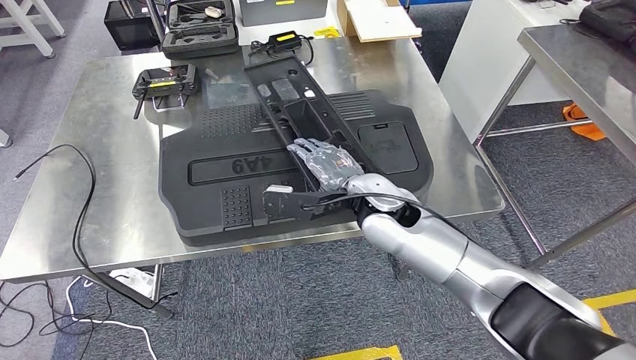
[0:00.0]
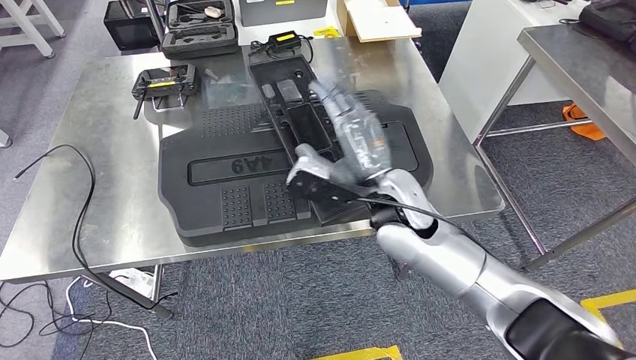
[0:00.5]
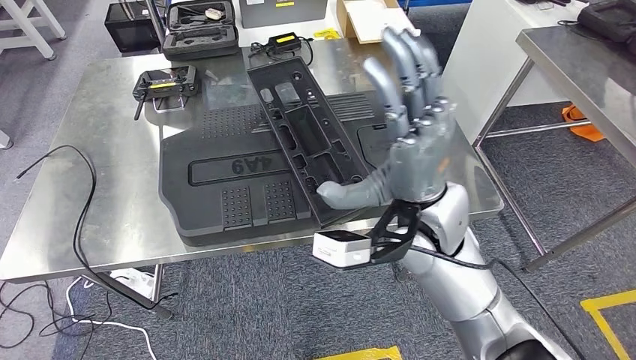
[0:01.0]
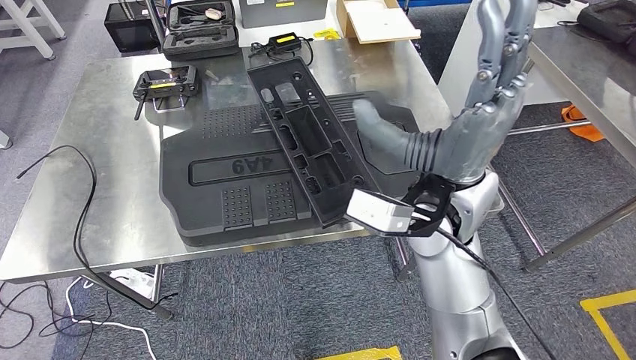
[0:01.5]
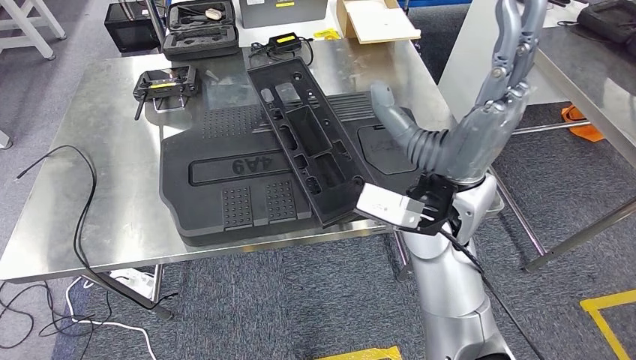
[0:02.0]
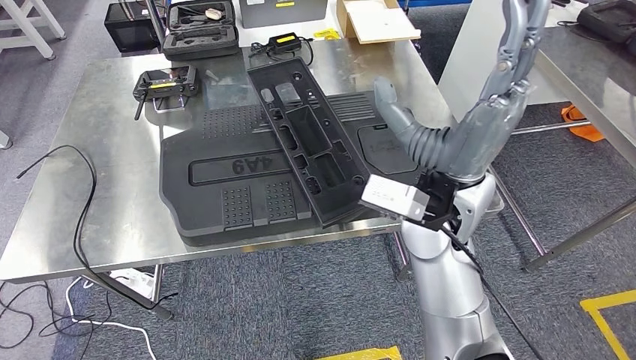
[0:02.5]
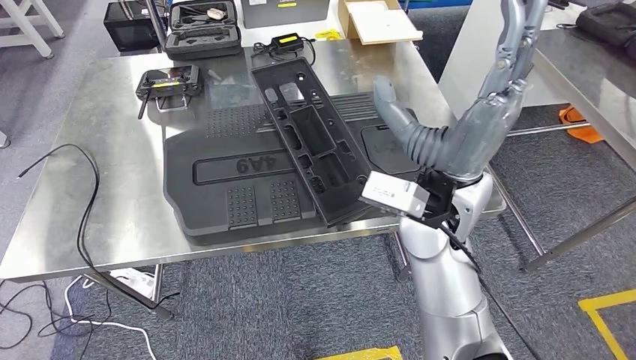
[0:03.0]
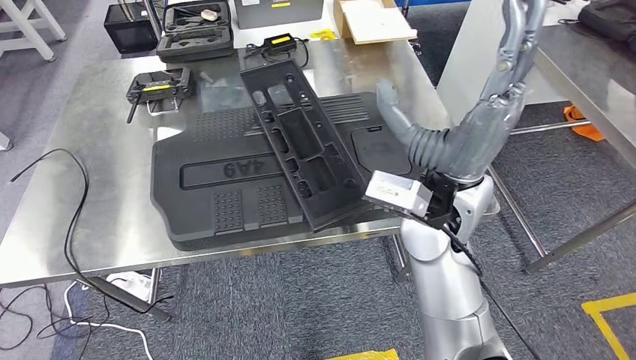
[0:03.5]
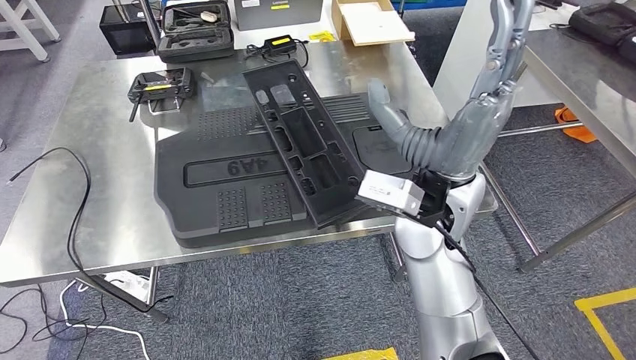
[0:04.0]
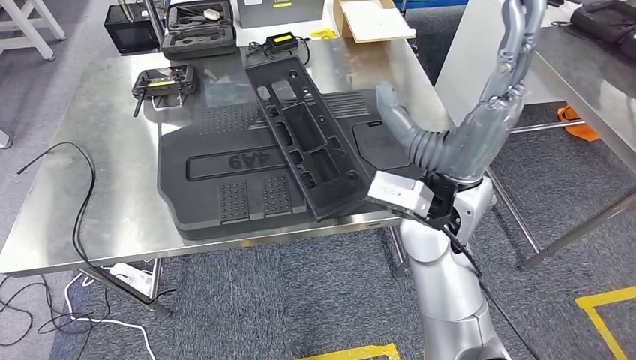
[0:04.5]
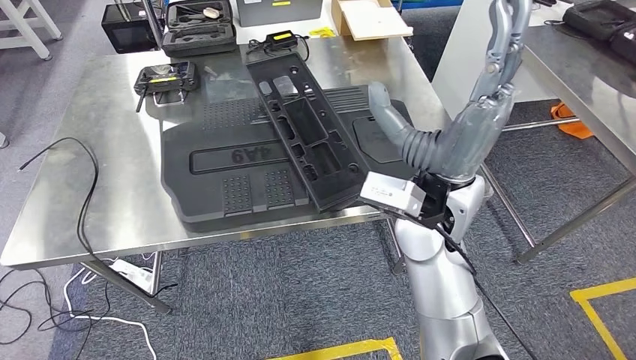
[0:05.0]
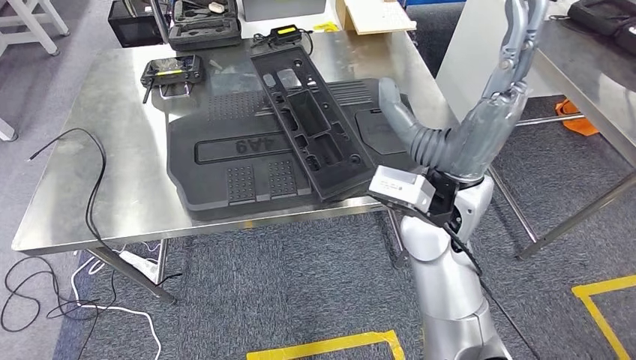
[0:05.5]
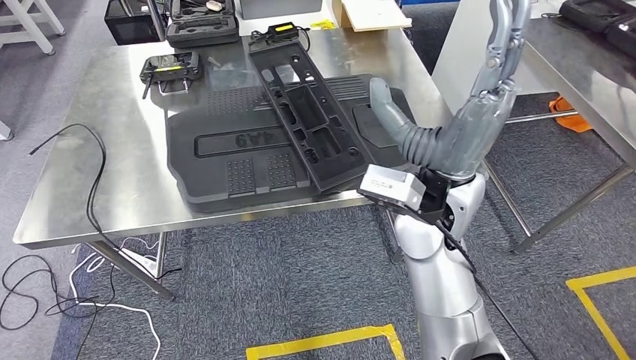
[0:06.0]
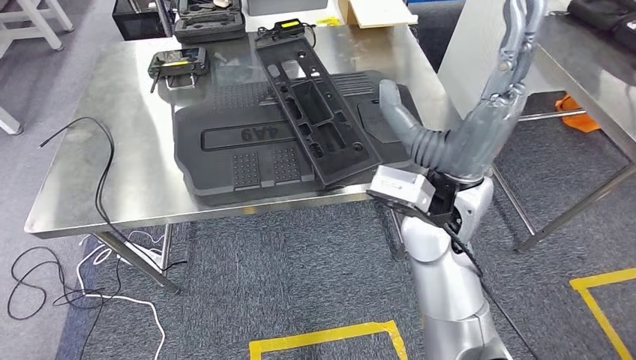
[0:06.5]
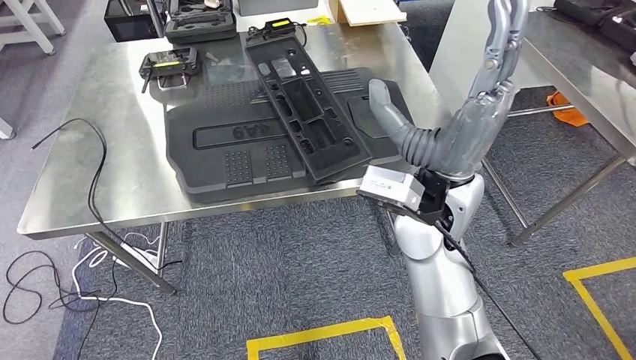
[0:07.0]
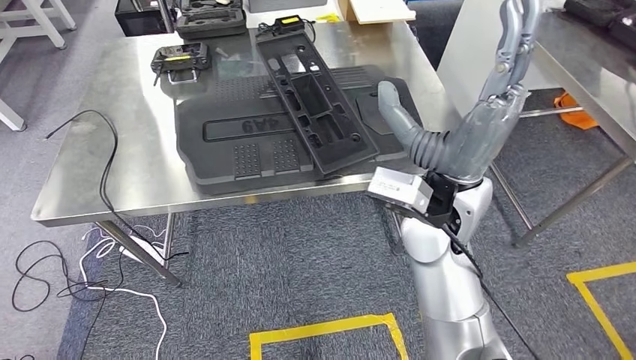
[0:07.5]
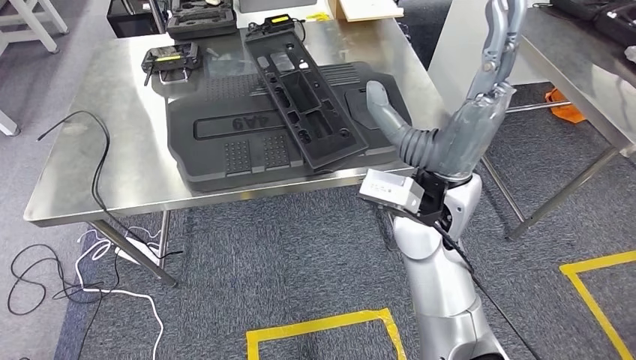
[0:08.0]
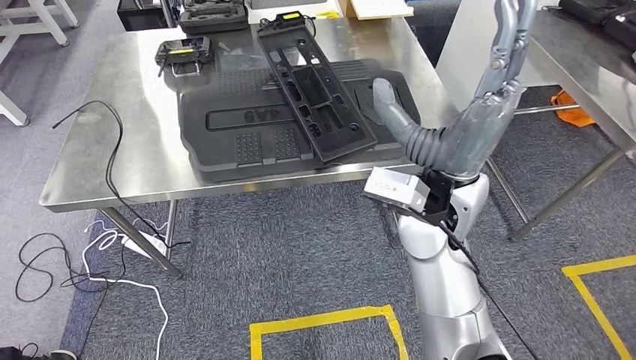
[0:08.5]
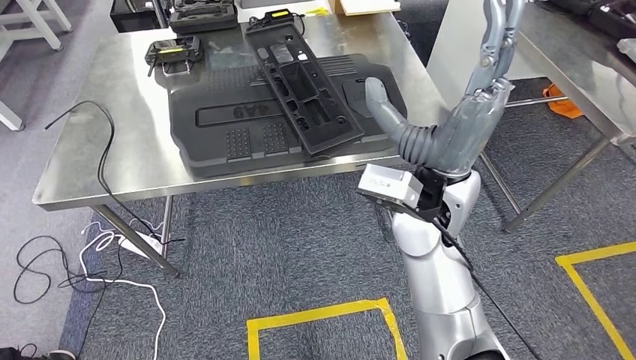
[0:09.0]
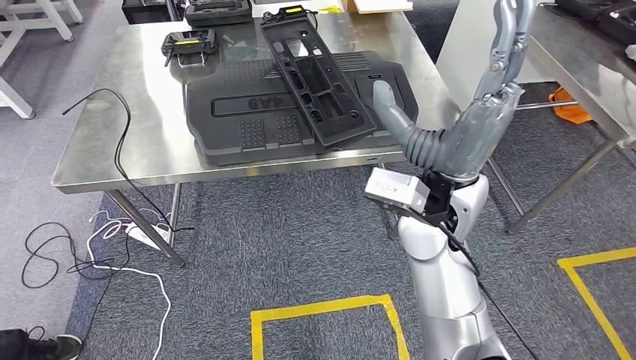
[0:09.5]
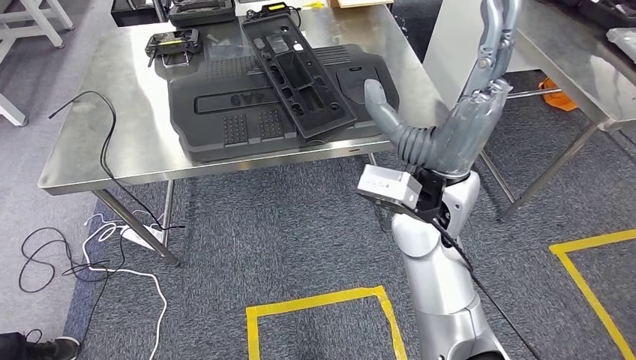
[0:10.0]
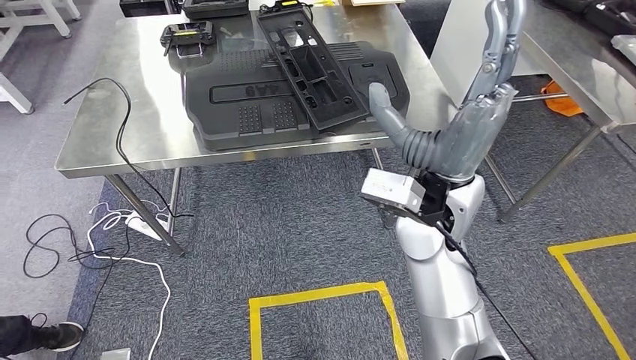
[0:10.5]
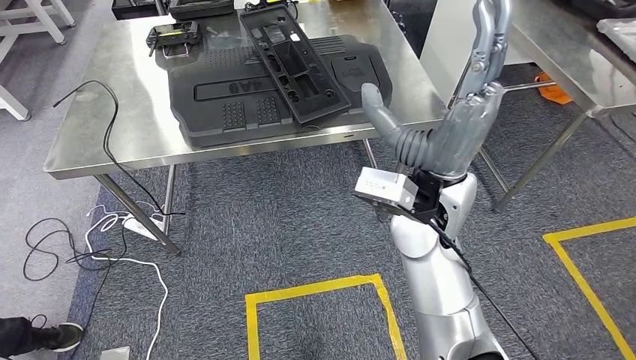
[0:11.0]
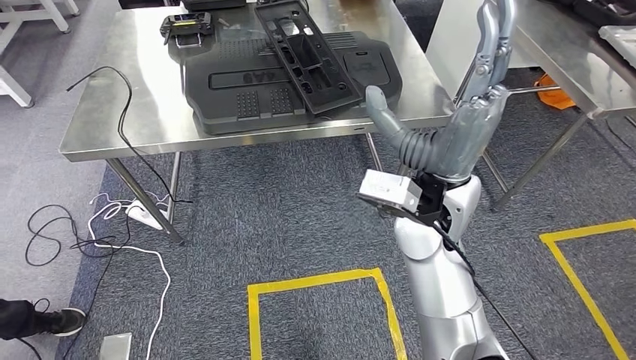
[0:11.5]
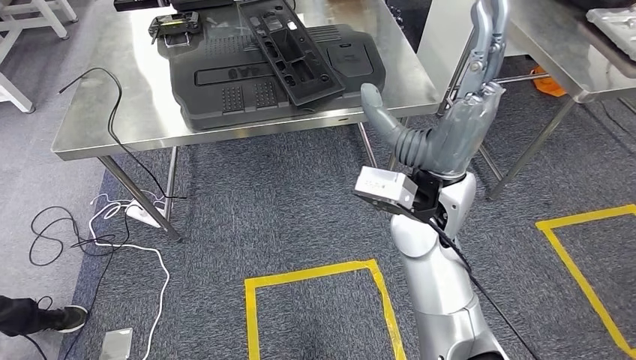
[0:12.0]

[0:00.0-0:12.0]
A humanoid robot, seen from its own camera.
Step, 0:00.0 to 0:08.5: Insert the large parts into the corresponding slots on the workbench.

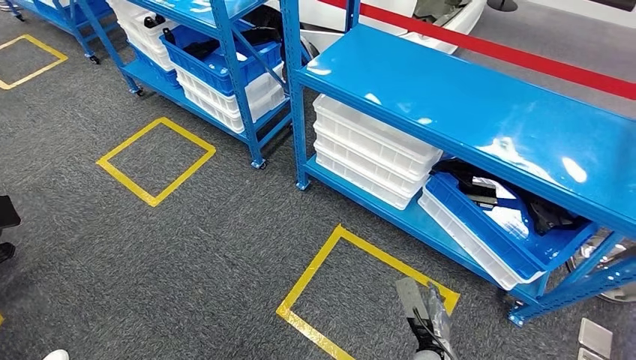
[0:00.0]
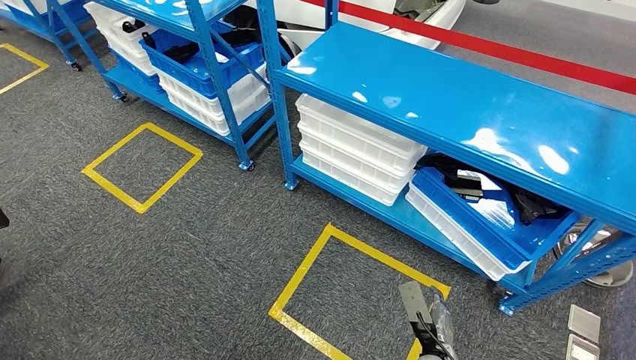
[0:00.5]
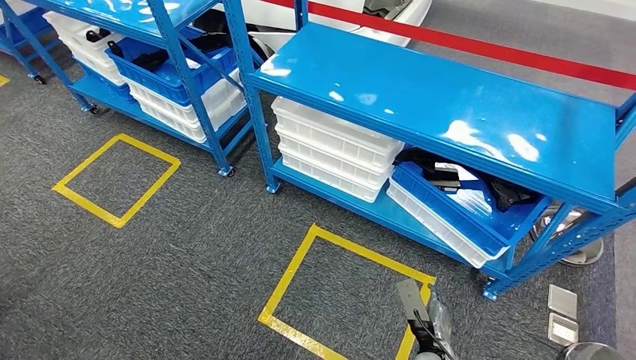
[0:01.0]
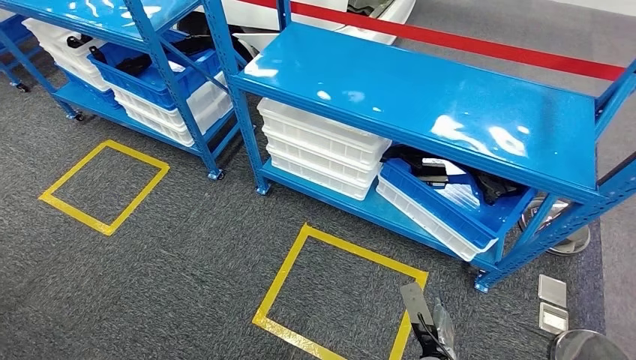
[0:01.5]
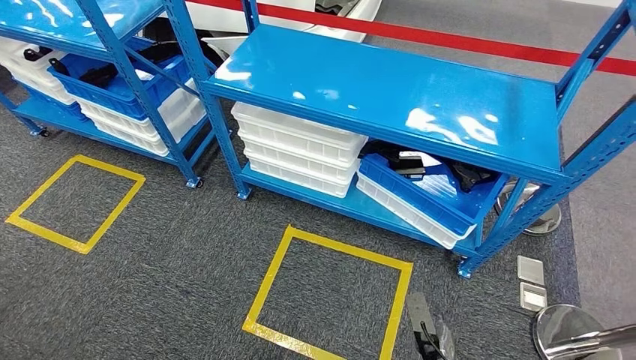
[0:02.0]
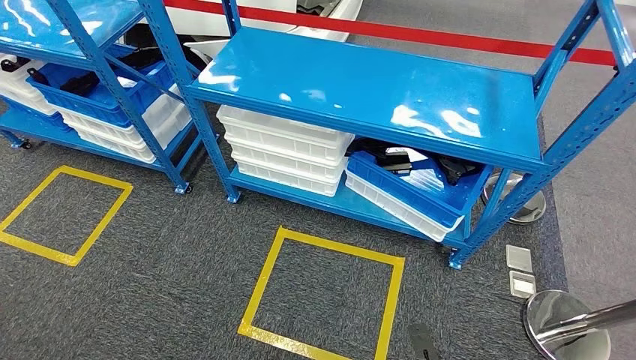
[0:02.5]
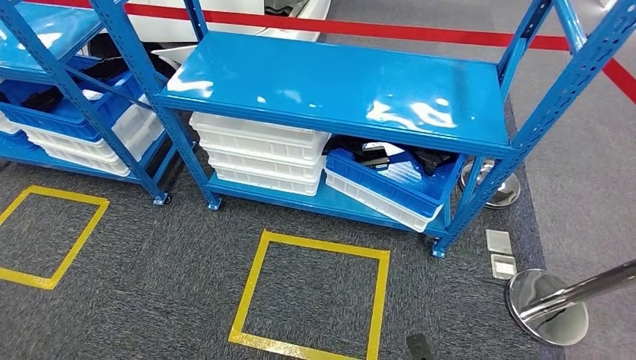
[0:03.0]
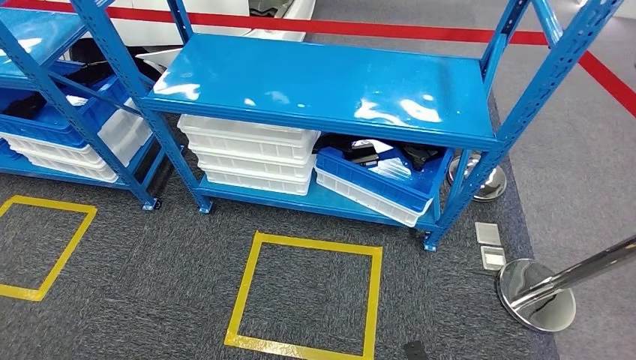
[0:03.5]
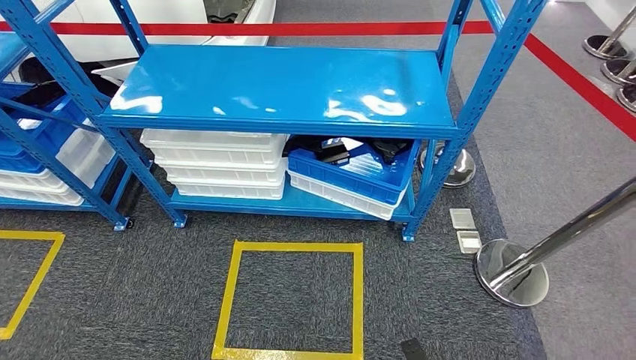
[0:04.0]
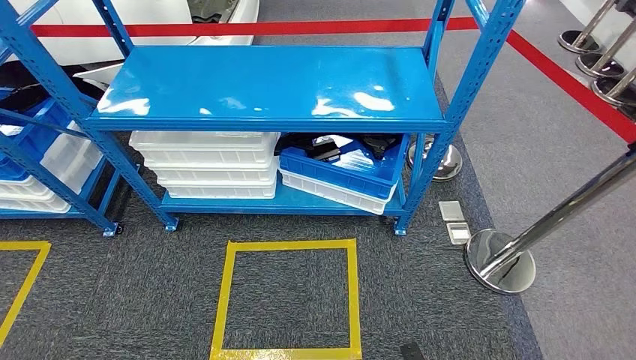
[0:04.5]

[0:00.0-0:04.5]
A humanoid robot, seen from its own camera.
Step, 0:00.0 to 0:04.5: Return to the initial position at the shelf.
